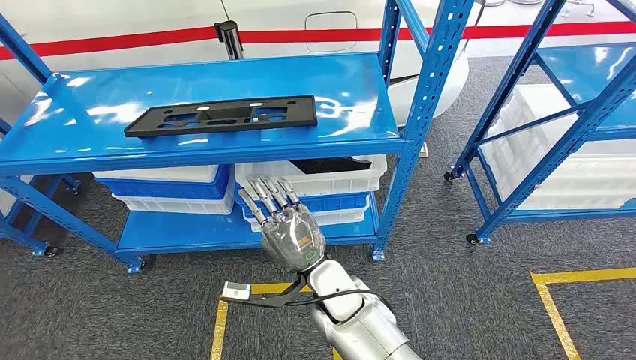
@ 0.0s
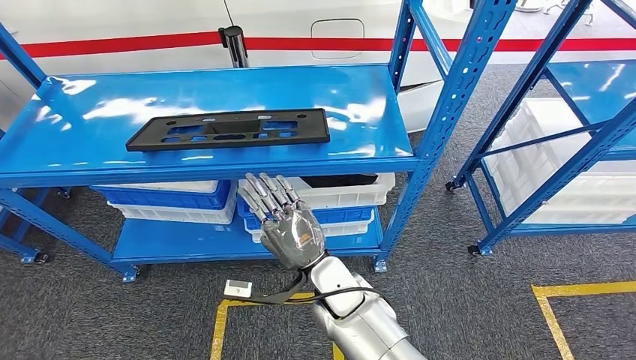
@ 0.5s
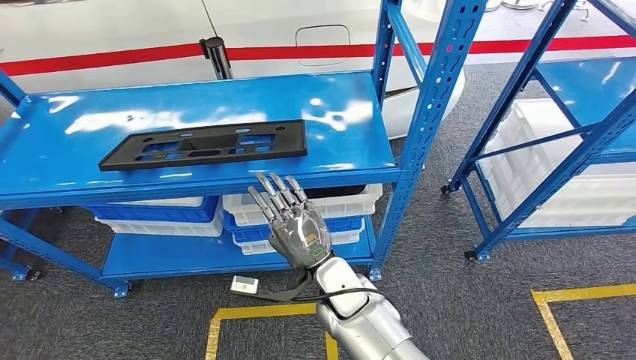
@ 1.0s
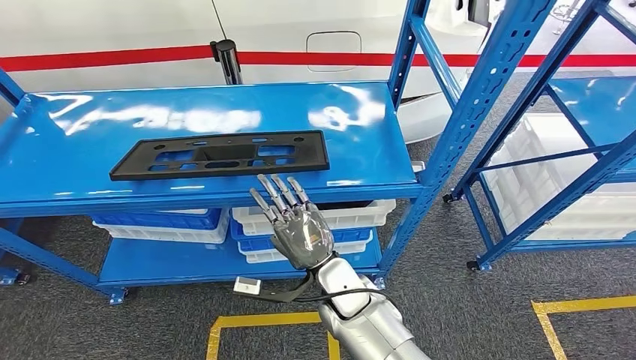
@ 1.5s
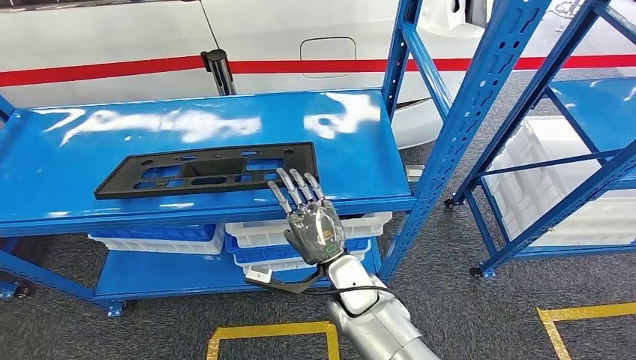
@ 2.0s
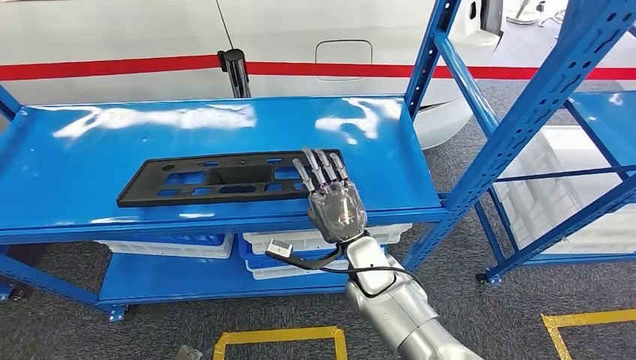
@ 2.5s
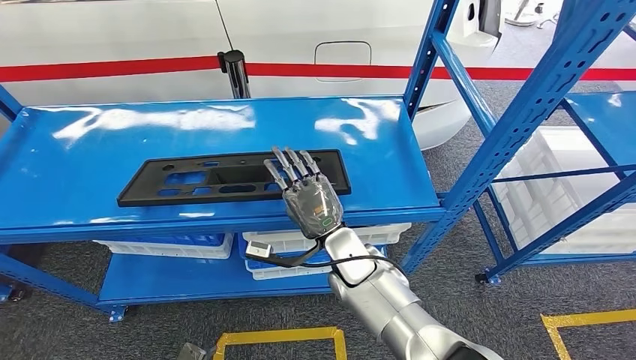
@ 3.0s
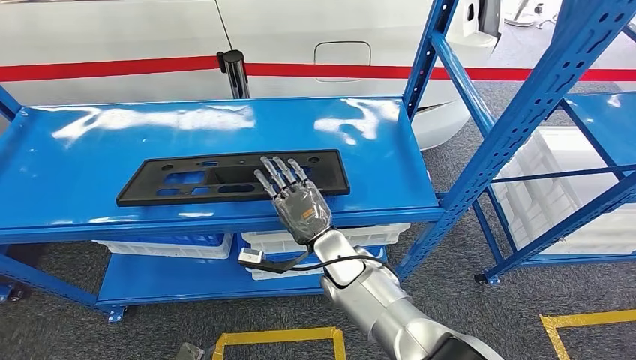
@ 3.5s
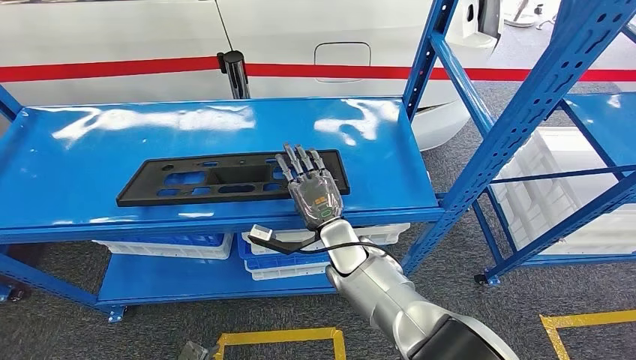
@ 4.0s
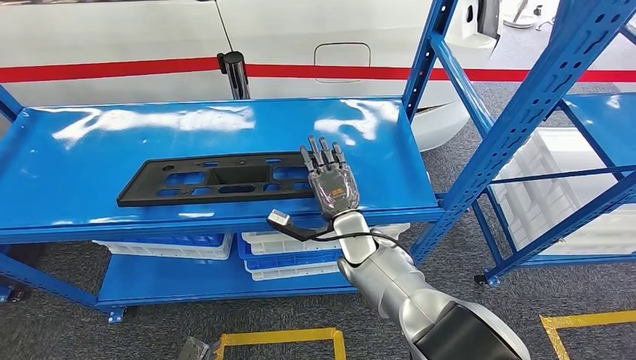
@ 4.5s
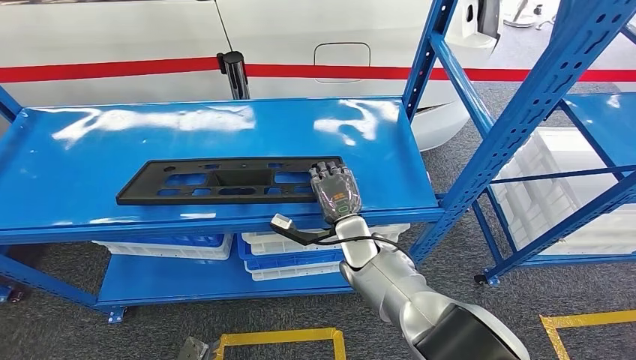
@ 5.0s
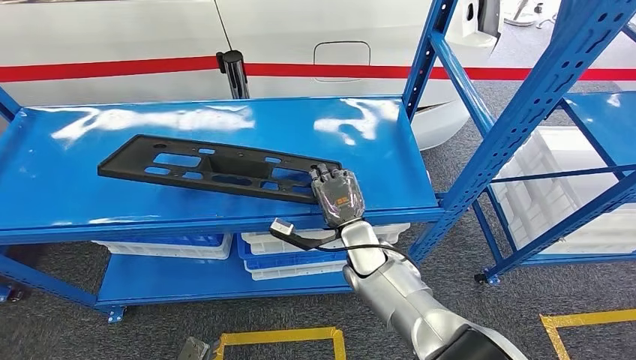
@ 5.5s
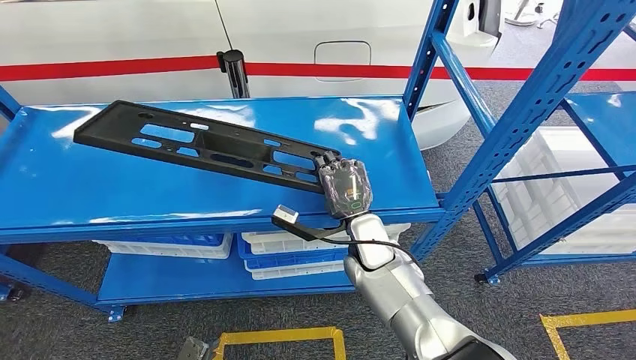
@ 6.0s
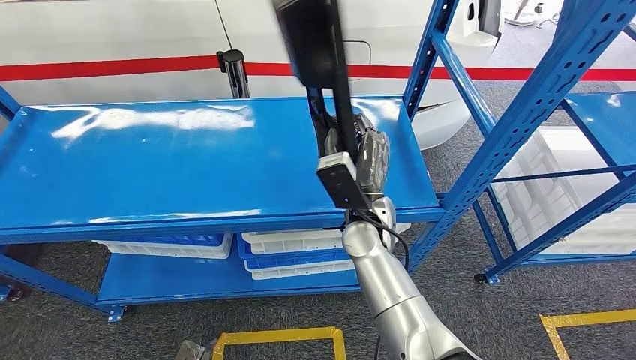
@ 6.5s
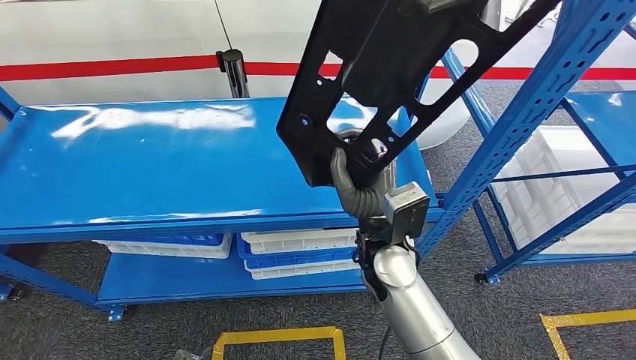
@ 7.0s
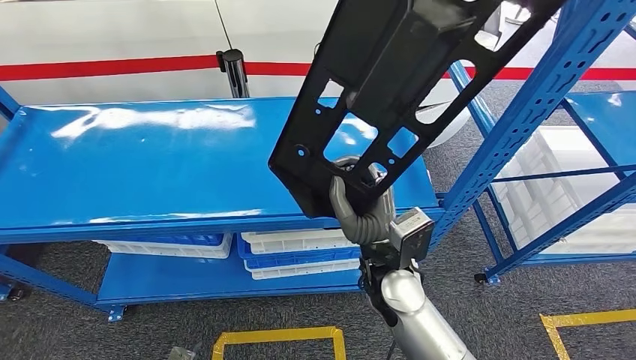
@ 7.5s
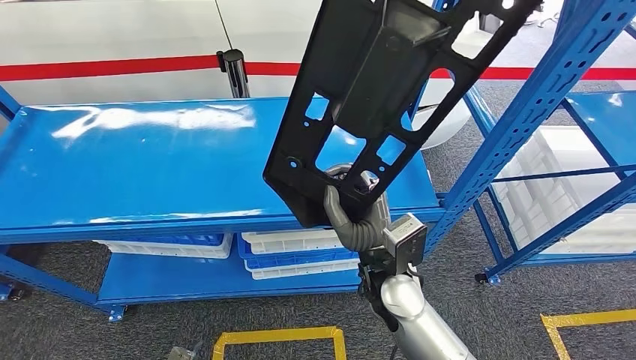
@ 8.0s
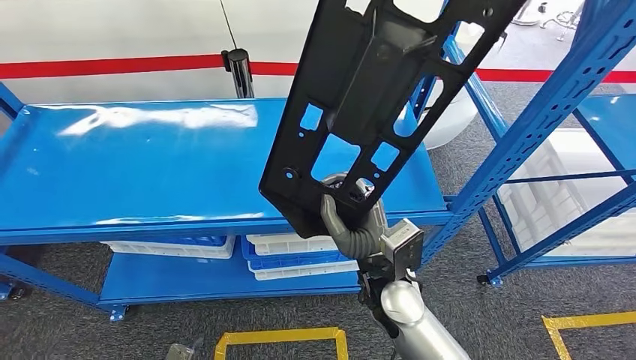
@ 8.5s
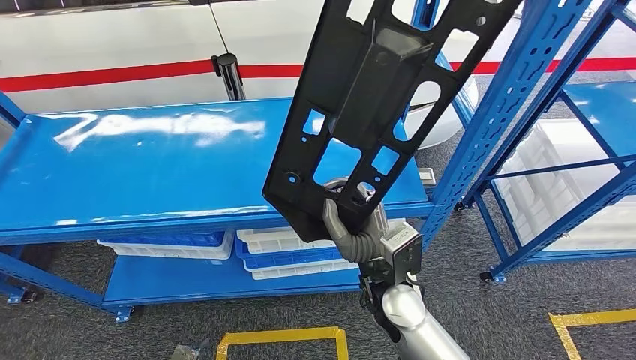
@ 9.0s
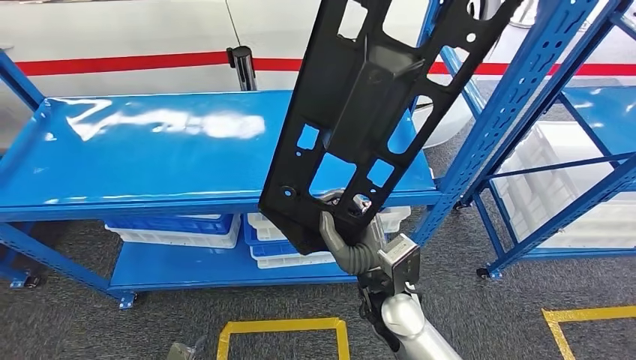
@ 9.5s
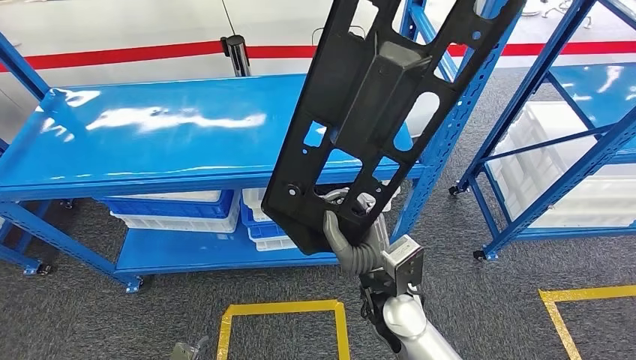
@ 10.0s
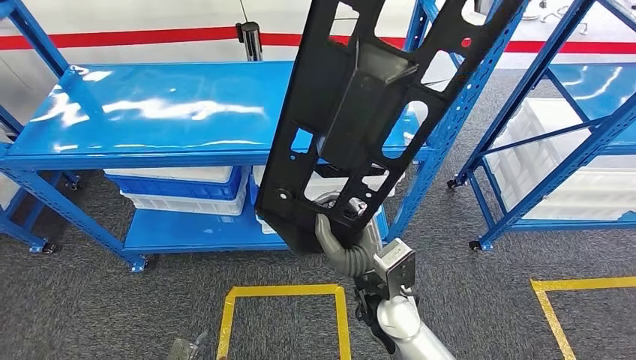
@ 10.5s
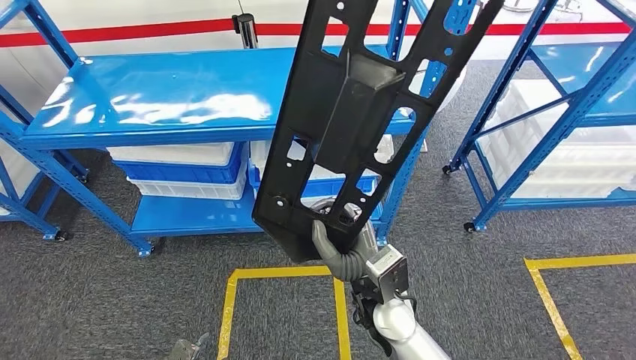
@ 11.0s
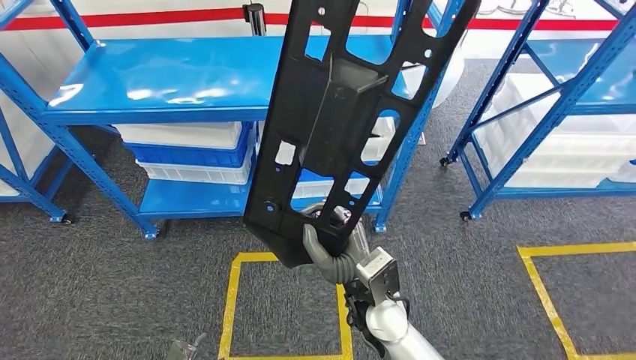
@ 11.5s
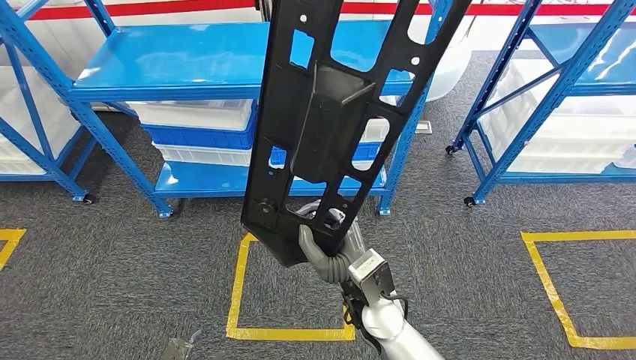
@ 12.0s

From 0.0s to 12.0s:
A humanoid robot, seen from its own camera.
Step, from 0.0s to 11.0s: Pick up the large material from the shelf.
From 4.0s to 6.0s: The hands make only small movements.

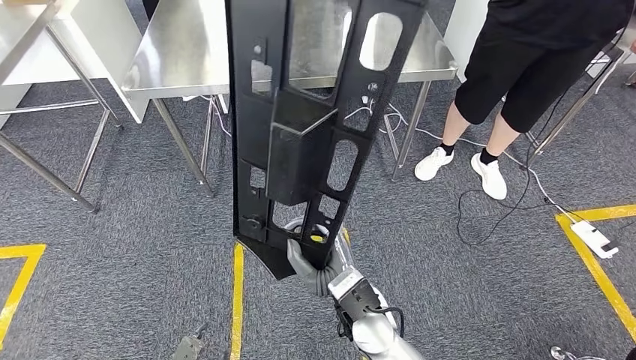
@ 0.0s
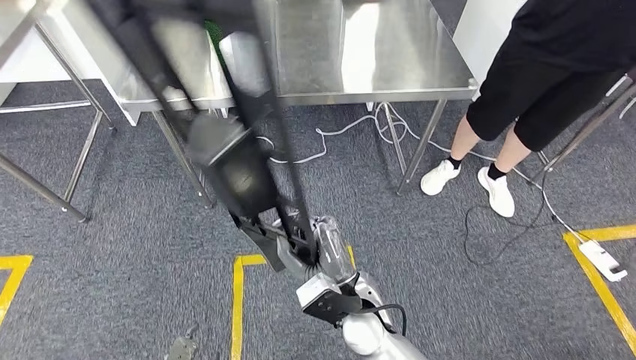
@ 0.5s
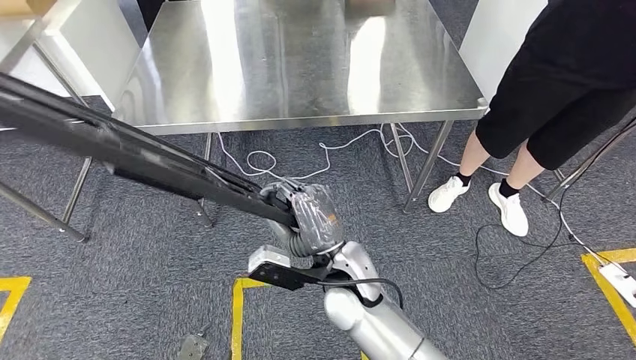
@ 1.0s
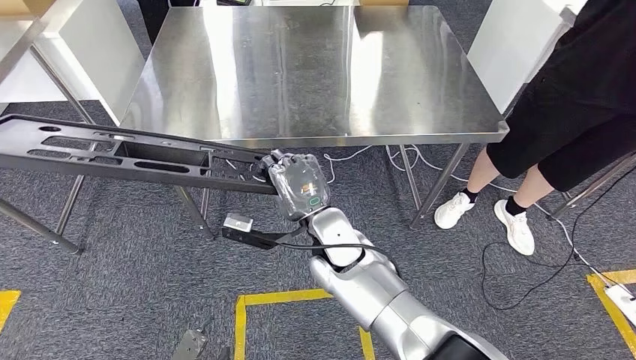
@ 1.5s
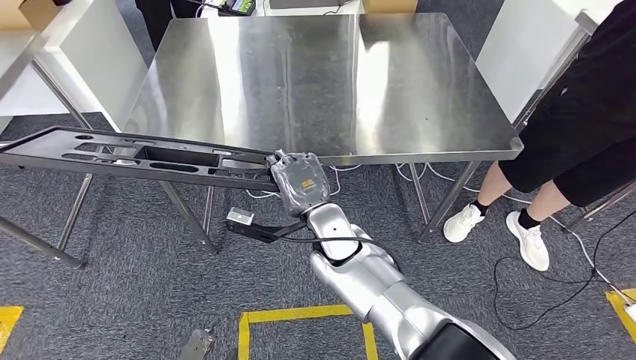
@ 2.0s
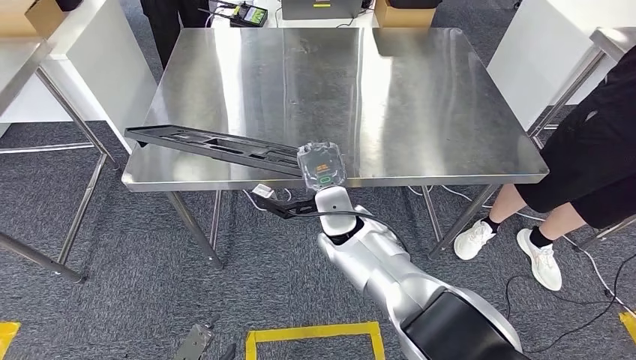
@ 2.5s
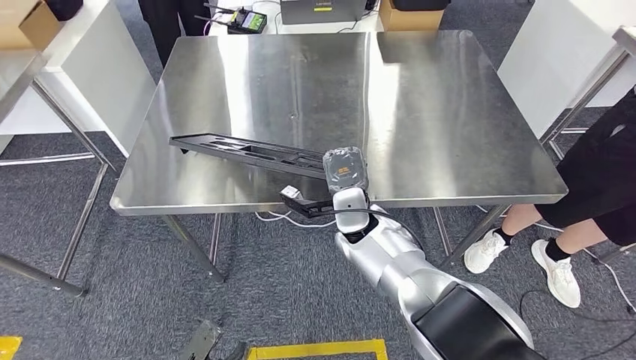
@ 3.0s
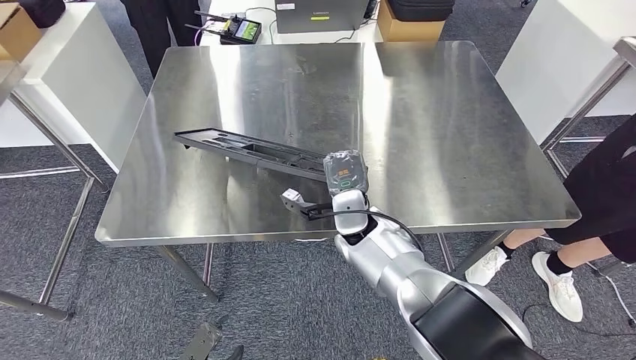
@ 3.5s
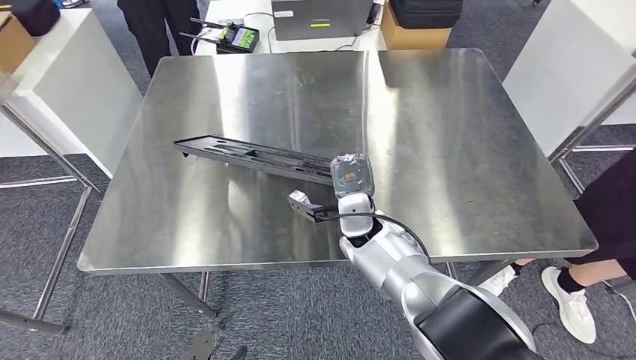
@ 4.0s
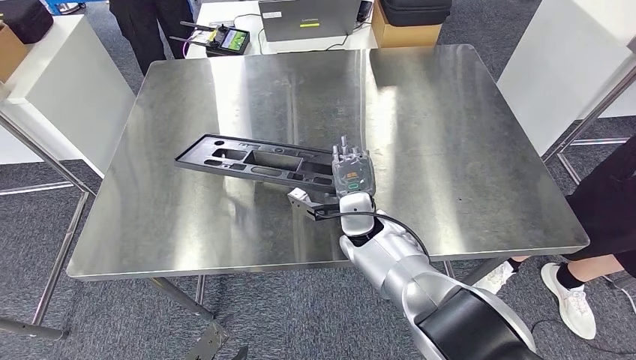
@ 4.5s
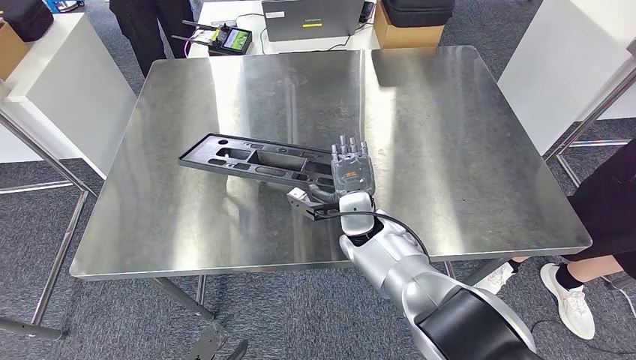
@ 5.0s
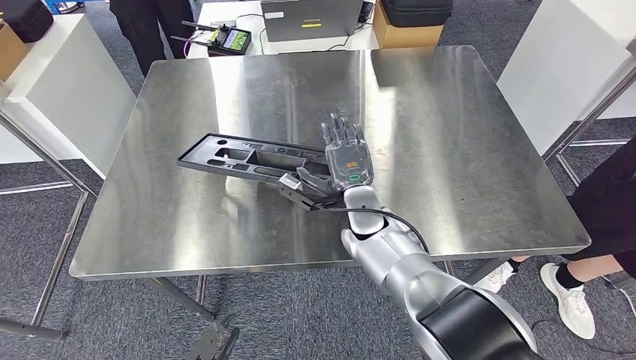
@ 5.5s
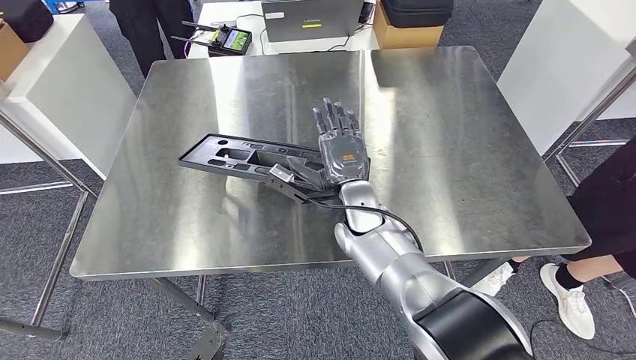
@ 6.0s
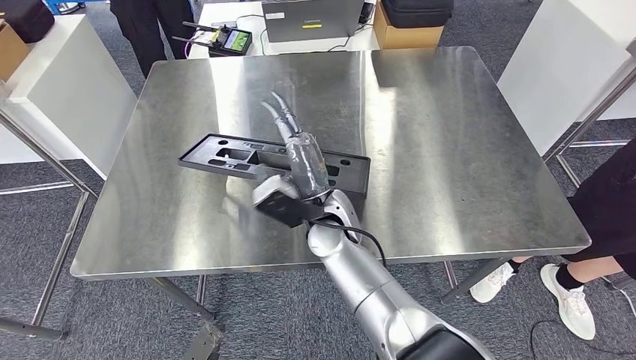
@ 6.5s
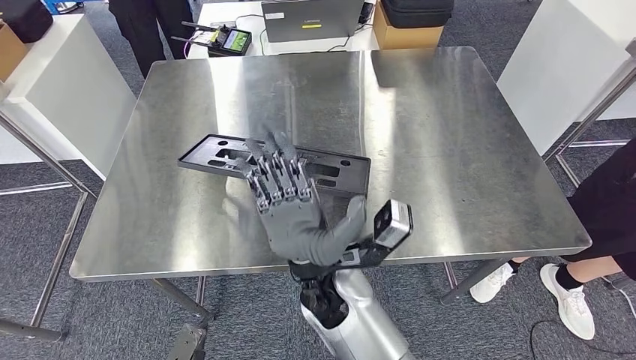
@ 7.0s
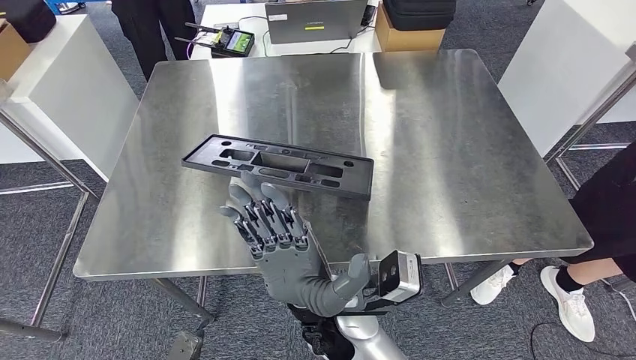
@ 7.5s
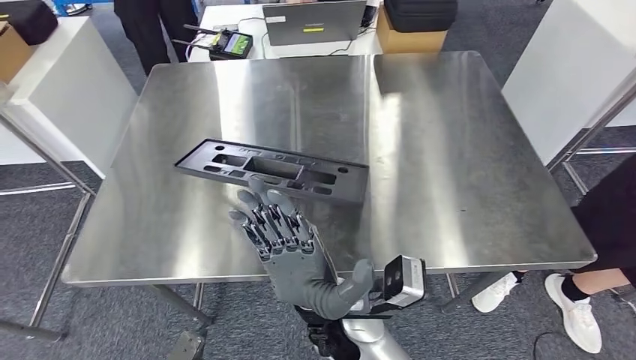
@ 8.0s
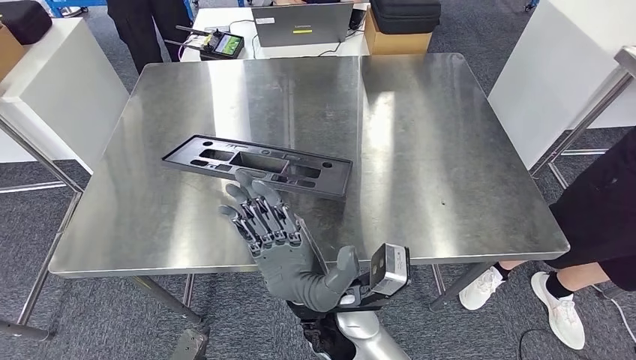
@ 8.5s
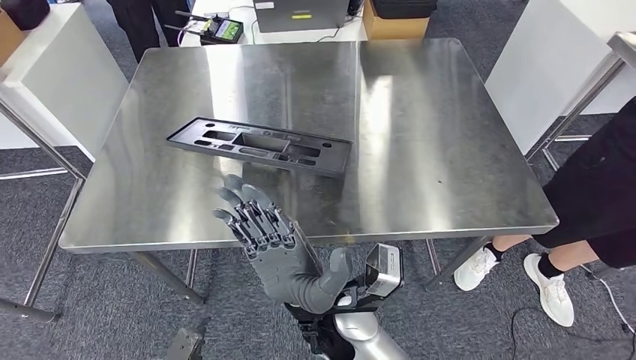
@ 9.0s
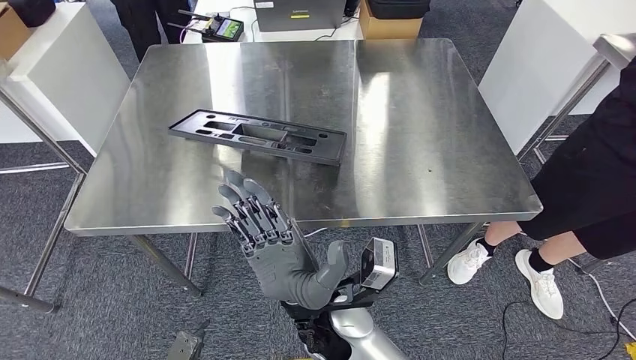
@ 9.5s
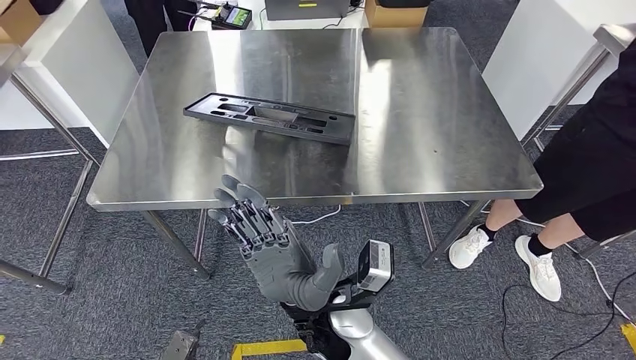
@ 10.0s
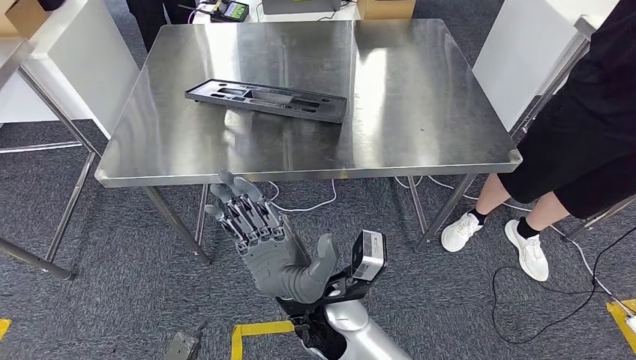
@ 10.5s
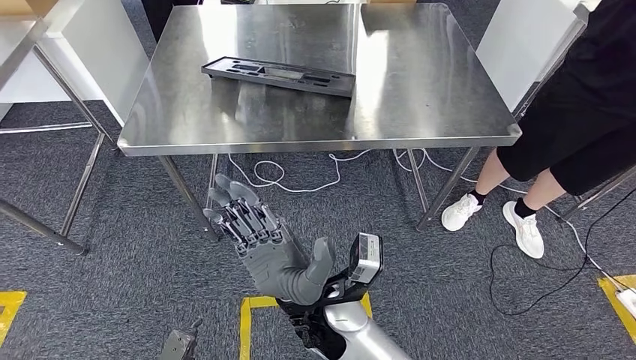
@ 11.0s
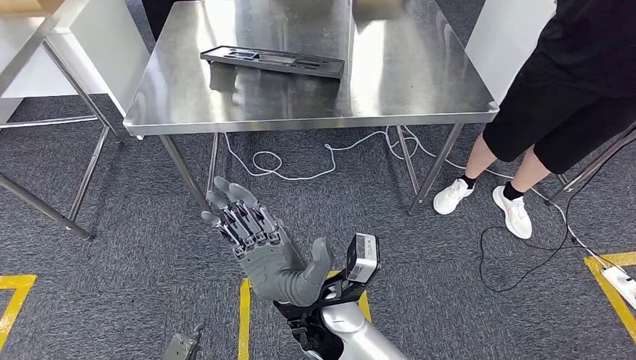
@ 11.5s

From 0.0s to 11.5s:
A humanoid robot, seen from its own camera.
From 6.0s to 7.5s: The right hand is displaced backward by about 20 cm.
